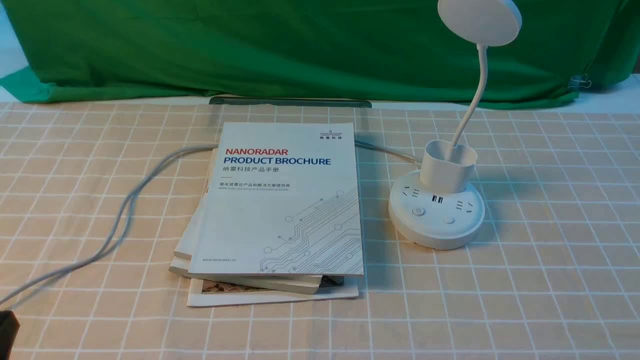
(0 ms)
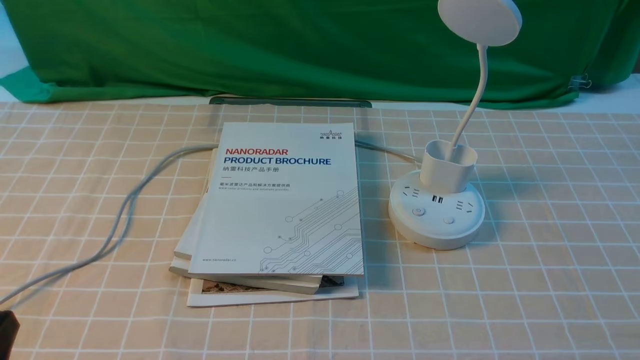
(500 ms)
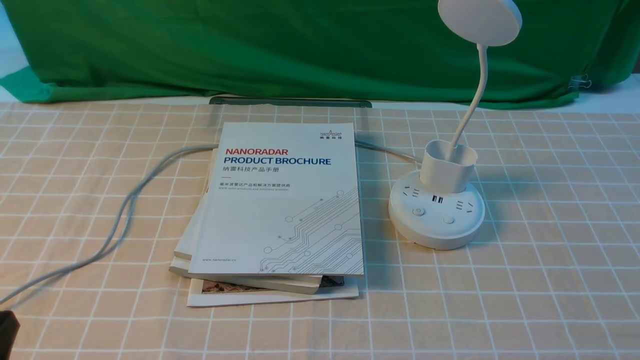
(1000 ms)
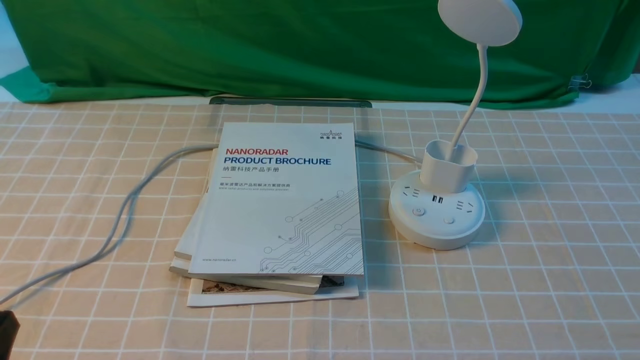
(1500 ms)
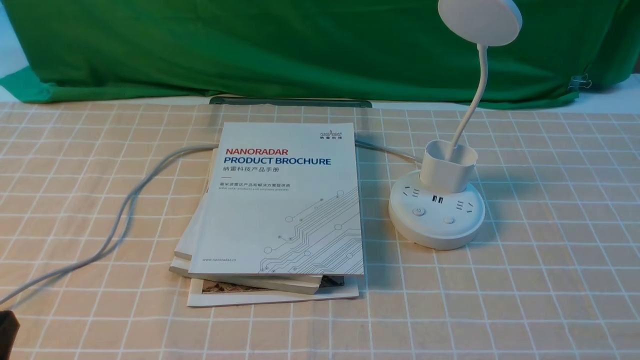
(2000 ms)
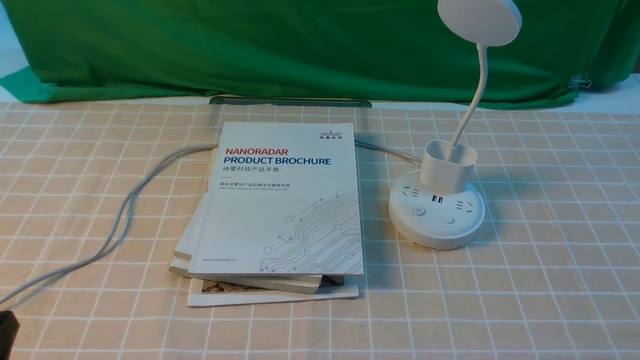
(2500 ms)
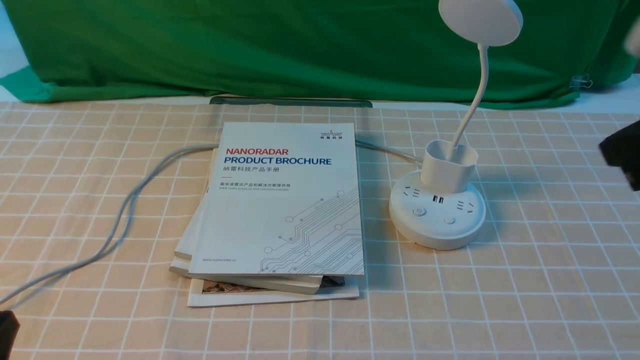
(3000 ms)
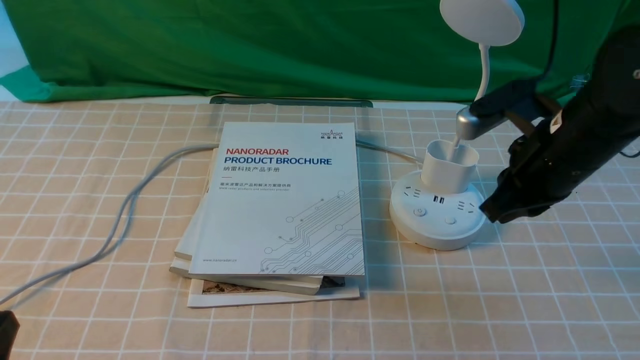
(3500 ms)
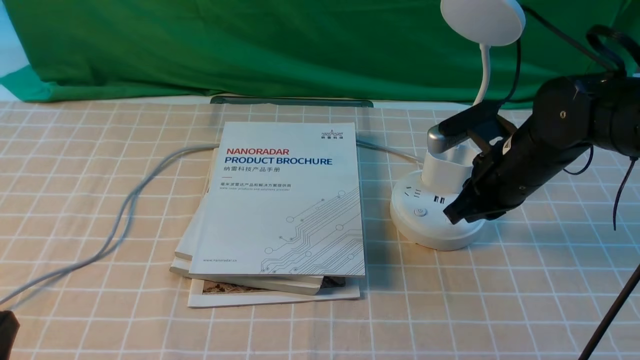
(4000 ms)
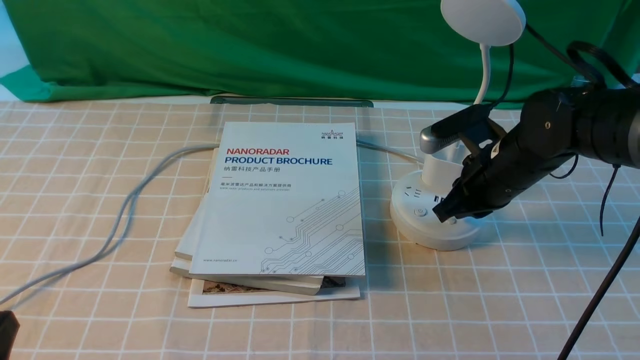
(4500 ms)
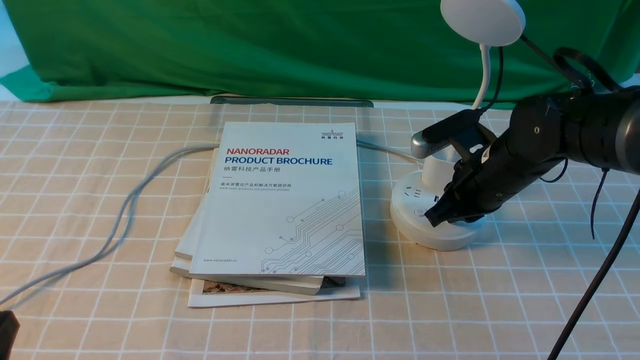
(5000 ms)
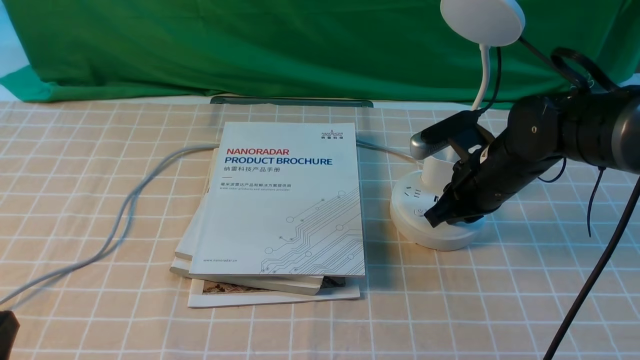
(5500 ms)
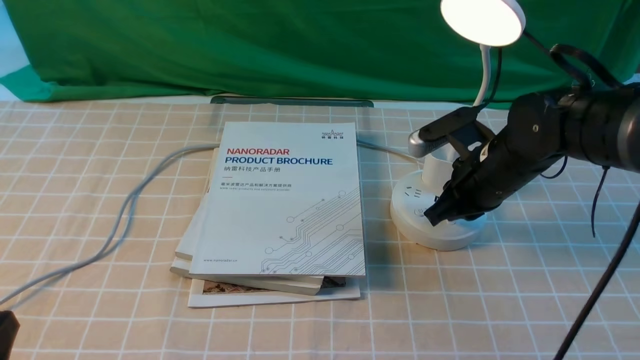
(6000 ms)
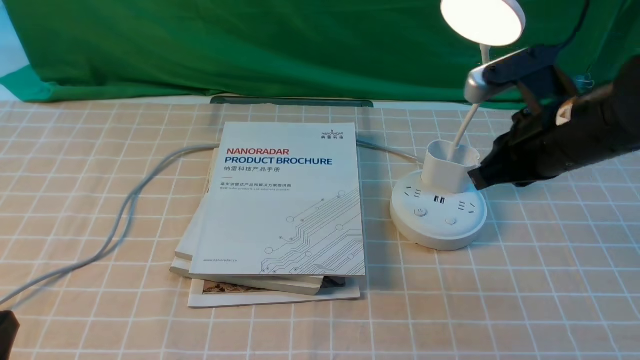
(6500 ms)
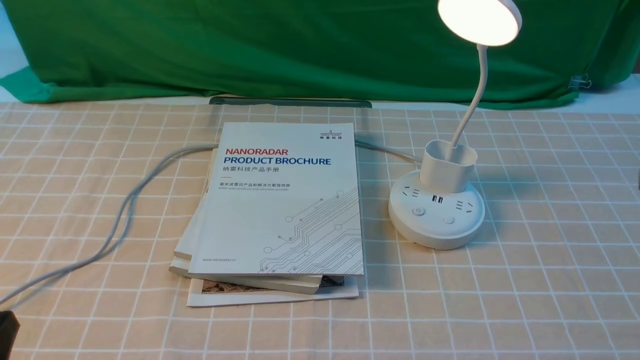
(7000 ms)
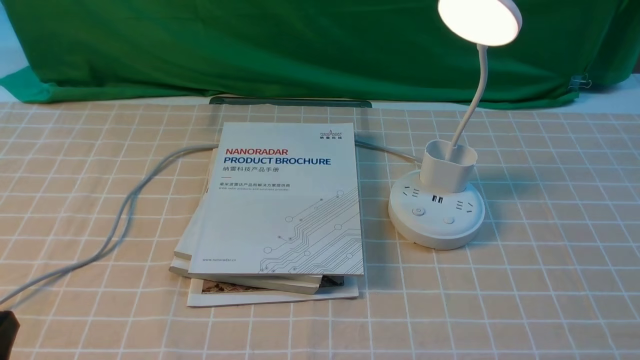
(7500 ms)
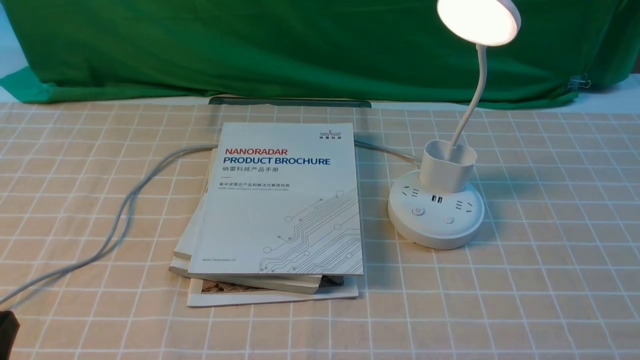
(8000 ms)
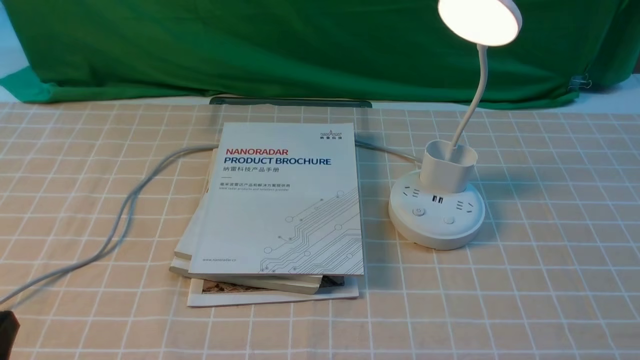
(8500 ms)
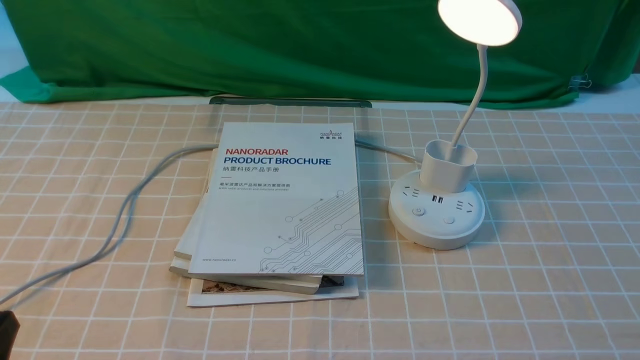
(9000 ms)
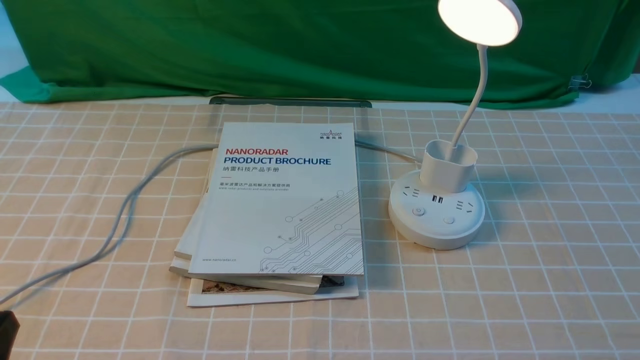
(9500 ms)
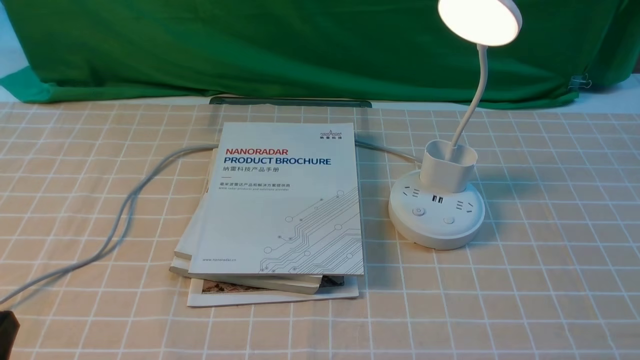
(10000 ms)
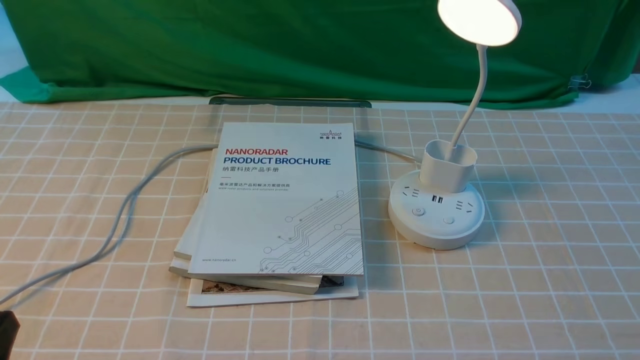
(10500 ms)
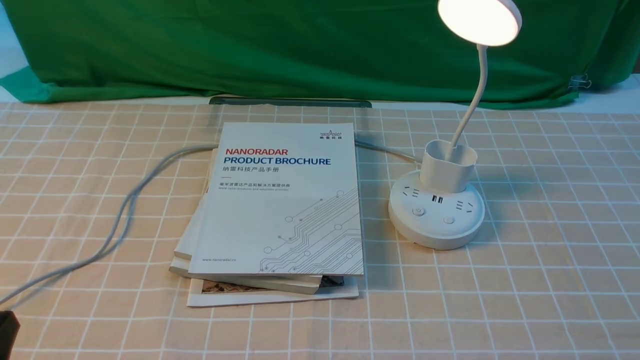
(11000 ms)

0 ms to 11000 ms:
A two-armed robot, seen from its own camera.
Step, 0 ms to 6000 ms: use the right arm to press the button switch on the lamp holder.
2000 ms to 3500 ms: The right gripper heads forward and to the left, covering roughly 25 cm, and closes up.
3500 ms to 5500 ms: The right gripper is displaced downward and forward by roughly 15 cm.
5500 ms to 7500 ms: The right gripper goes some 30 cm backward and to the right.
9000 ms to 11000 ms: Both grippers stay about where they are.
